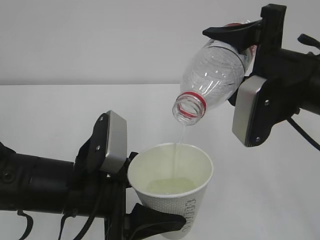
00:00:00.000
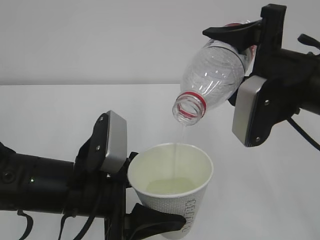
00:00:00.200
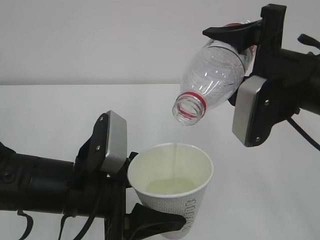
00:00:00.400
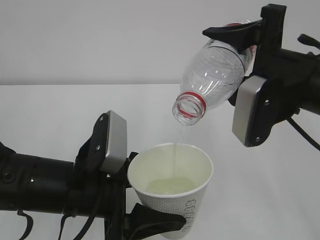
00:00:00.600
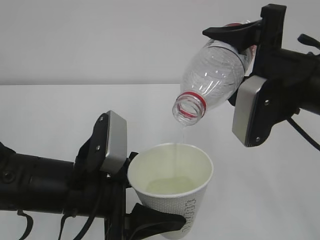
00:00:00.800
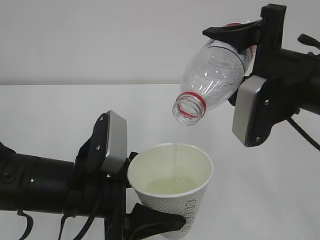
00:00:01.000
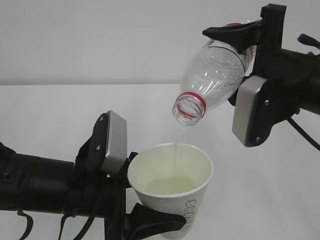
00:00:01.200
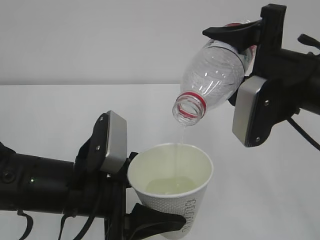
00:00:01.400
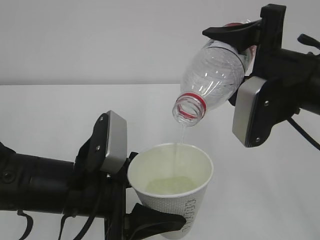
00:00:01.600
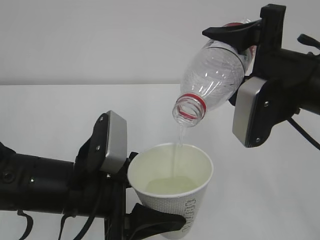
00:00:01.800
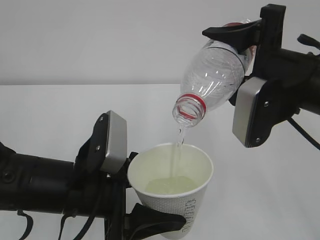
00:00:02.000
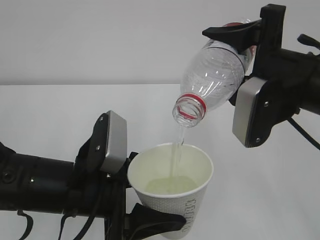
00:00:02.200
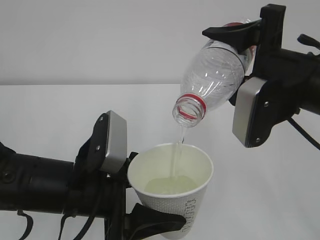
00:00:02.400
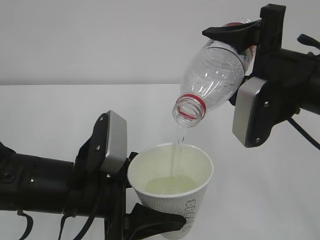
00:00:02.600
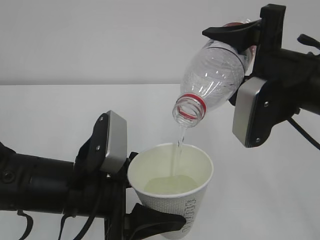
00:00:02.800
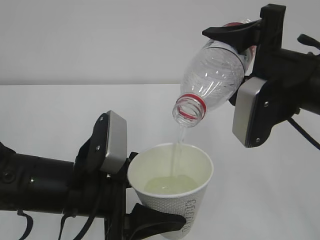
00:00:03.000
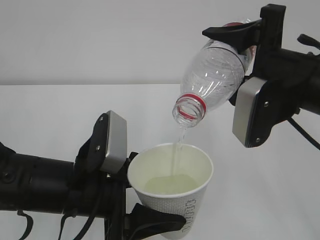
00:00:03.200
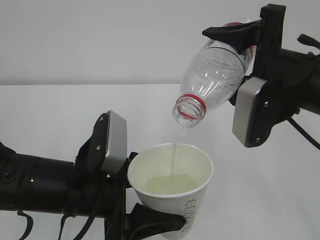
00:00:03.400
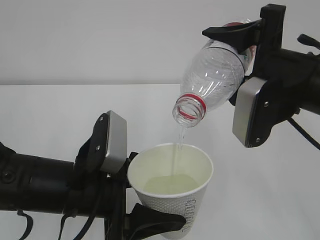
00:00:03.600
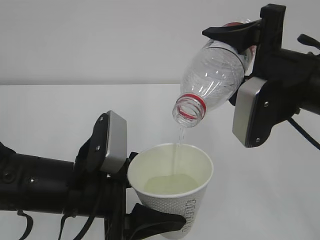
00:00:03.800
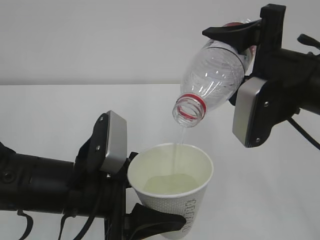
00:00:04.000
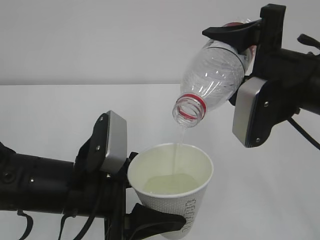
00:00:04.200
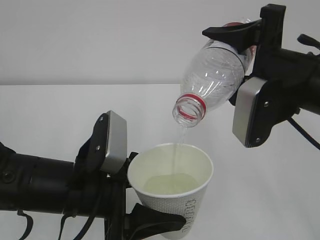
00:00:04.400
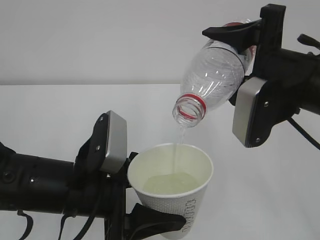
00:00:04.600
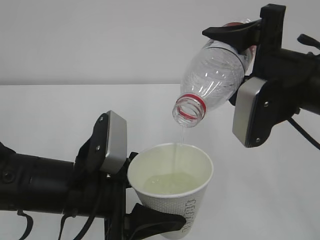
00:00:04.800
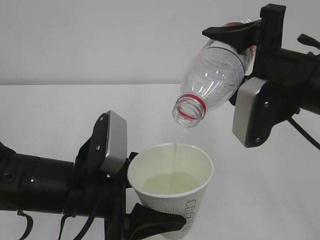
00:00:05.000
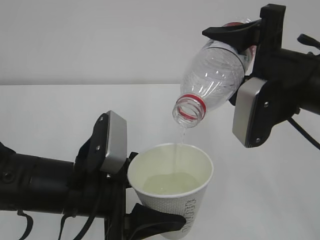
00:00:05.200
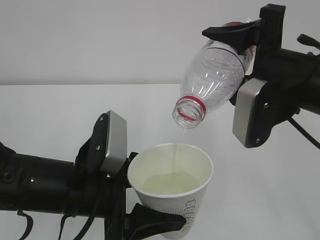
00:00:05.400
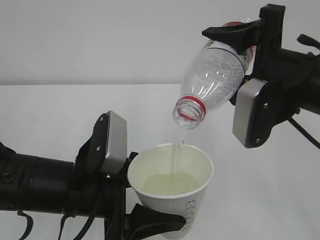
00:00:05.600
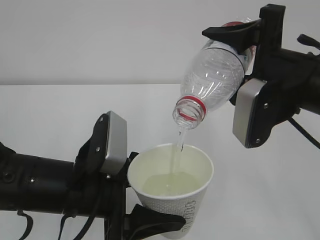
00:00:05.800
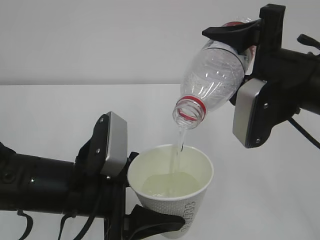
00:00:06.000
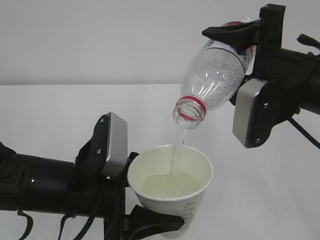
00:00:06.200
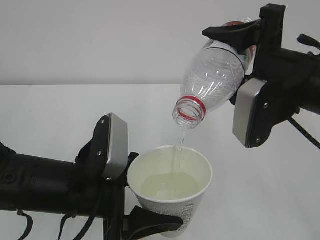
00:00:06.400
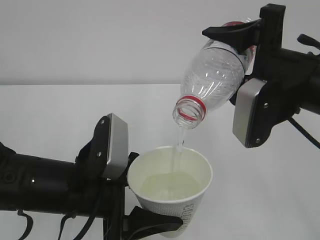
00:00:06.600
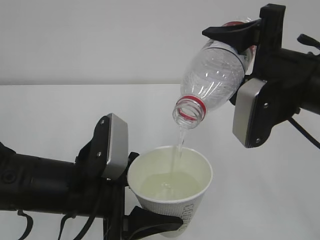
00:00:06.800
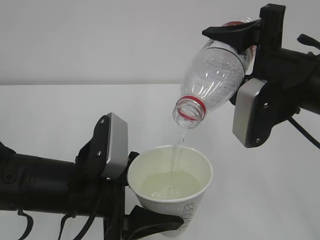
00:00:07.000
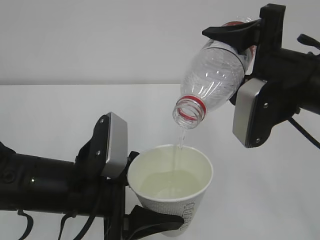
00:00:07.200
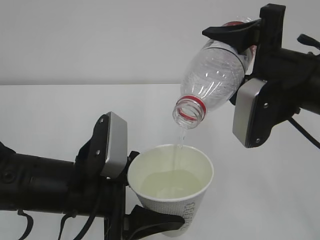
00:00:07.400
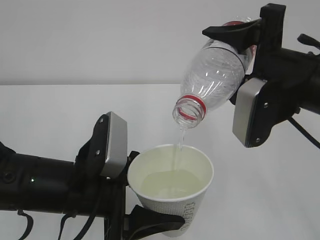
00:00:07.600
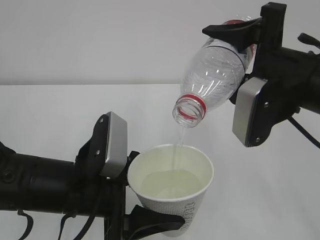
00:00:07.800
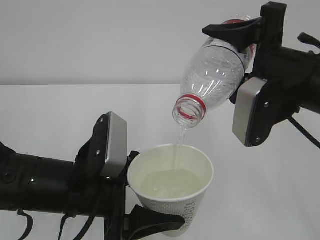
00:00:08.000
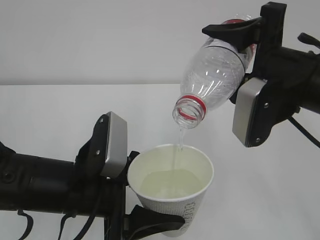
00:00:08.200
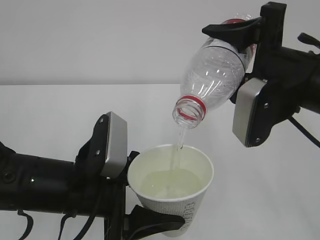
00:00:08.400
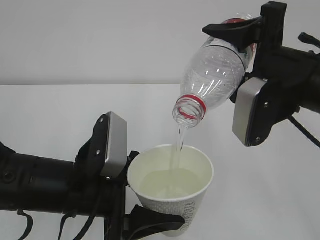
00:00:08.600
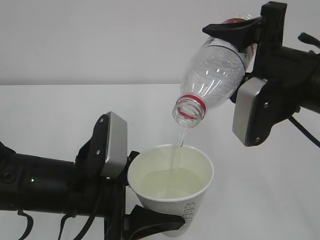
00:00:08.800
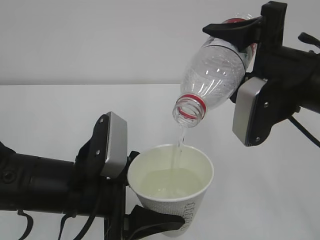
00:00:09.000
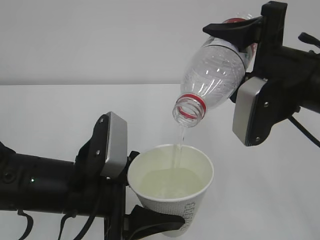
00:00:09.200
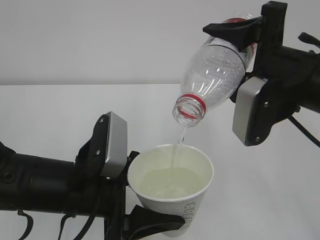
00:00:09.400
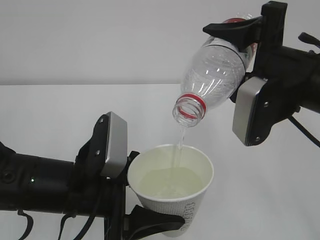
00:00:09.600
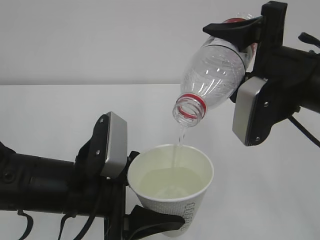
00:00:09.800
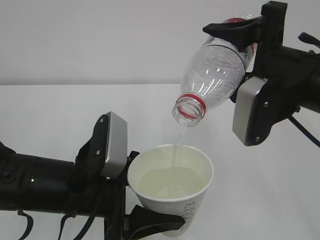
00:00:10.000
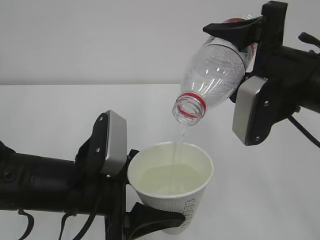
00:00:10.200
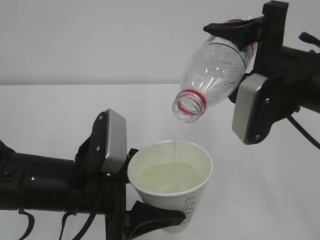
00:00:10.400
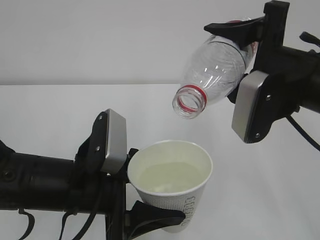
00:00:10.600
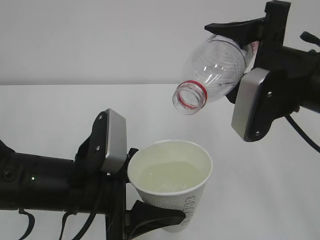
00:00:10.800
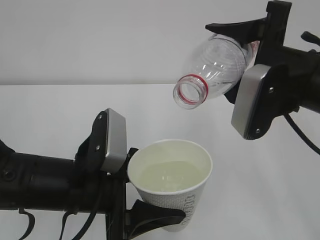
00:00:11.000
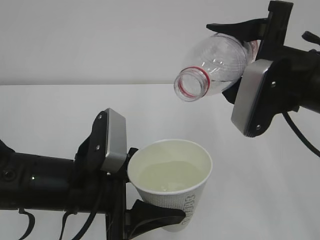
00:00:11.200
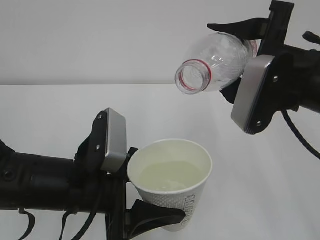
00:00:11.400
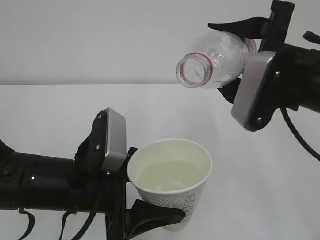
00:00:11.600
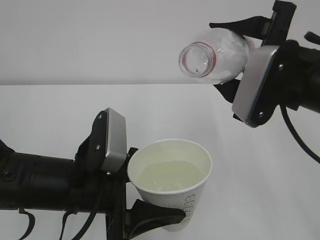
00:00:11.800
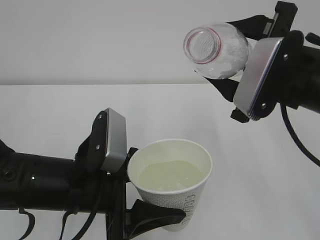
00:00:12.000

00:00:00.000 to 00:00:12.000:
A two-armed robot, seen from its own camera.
00:00:00.000 to 00:00:10.400: Neither gripper changes place.

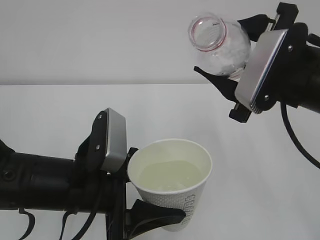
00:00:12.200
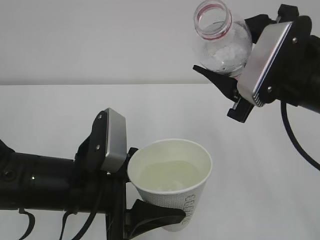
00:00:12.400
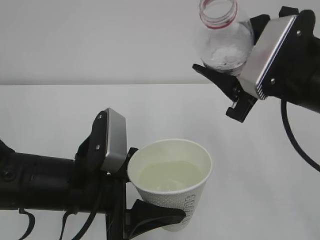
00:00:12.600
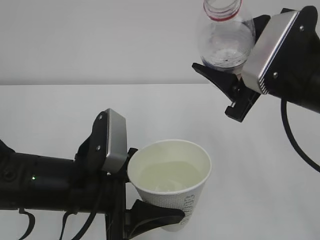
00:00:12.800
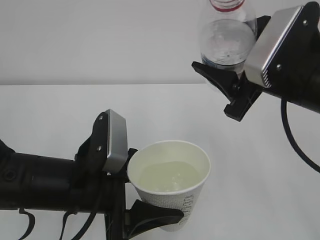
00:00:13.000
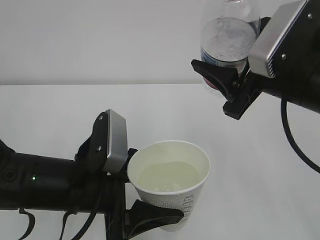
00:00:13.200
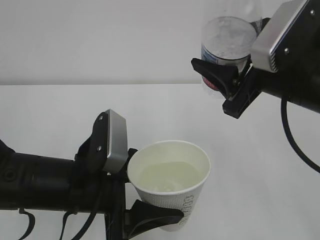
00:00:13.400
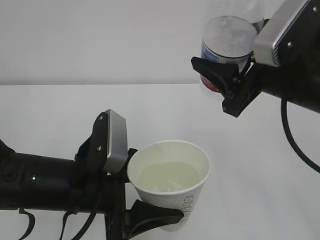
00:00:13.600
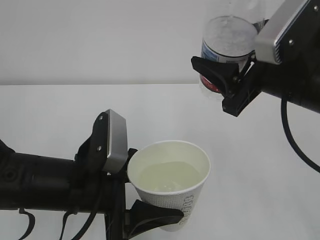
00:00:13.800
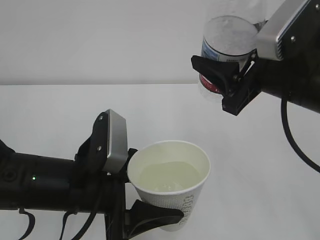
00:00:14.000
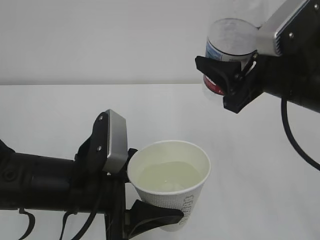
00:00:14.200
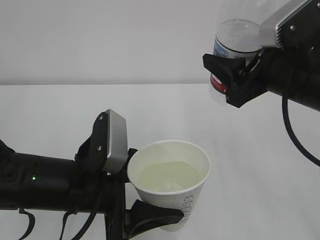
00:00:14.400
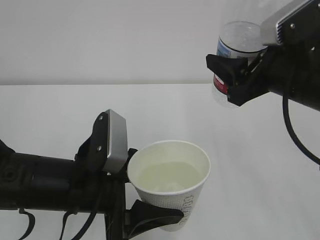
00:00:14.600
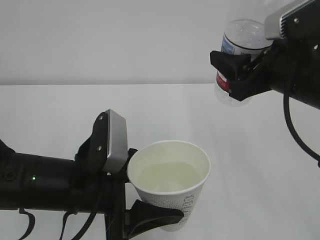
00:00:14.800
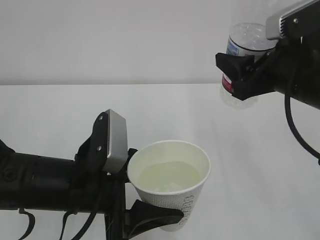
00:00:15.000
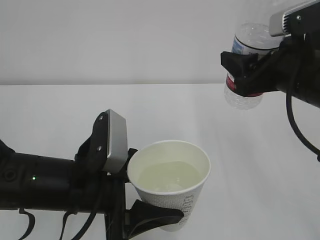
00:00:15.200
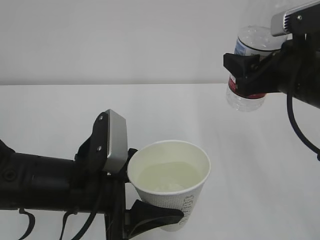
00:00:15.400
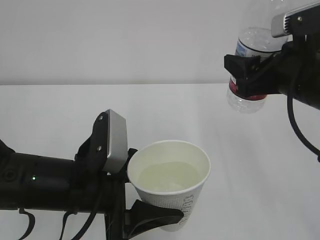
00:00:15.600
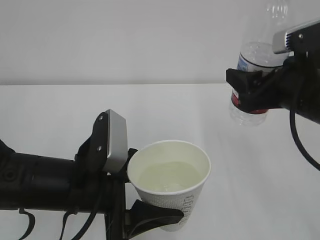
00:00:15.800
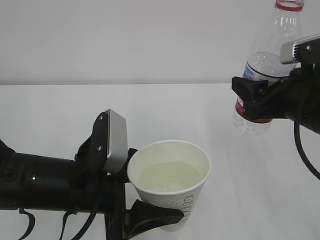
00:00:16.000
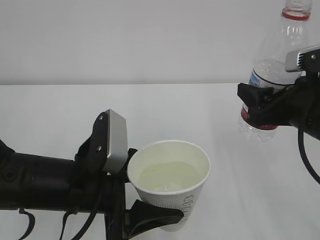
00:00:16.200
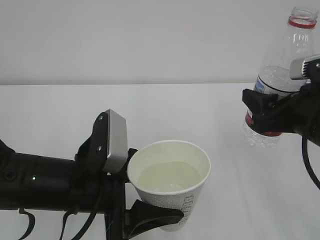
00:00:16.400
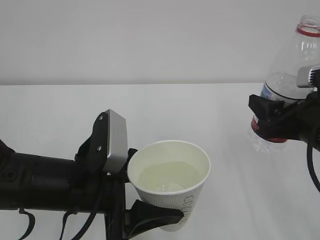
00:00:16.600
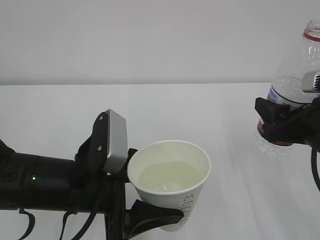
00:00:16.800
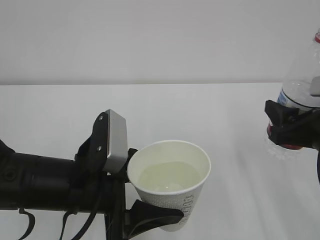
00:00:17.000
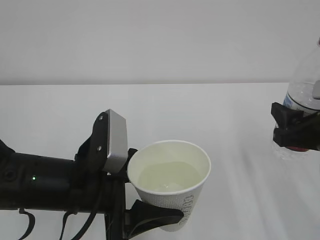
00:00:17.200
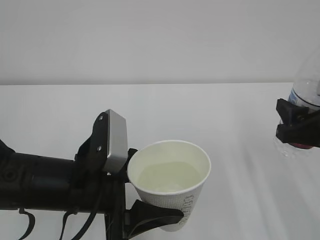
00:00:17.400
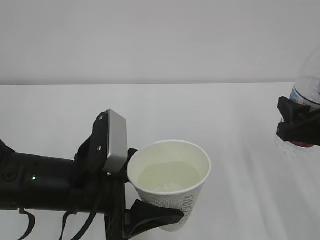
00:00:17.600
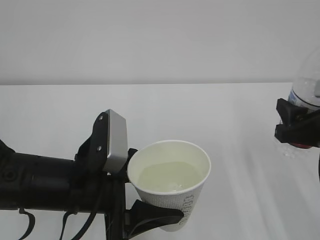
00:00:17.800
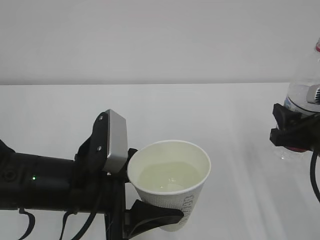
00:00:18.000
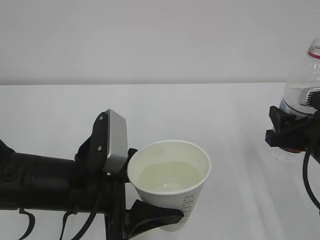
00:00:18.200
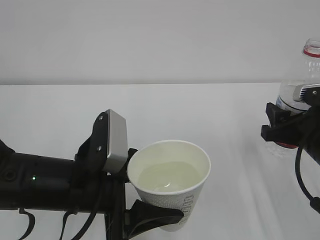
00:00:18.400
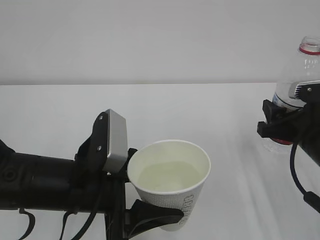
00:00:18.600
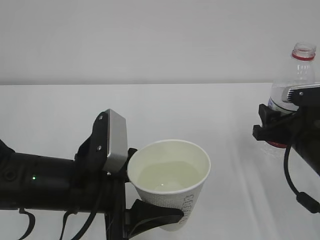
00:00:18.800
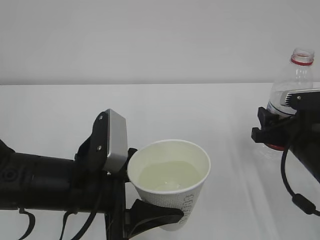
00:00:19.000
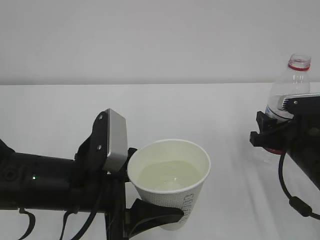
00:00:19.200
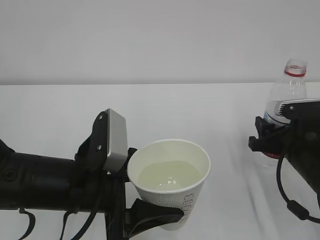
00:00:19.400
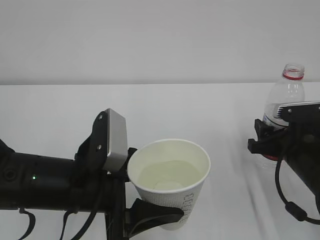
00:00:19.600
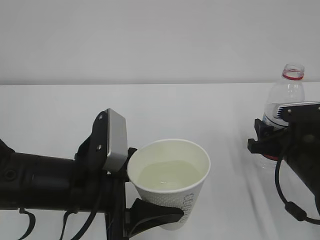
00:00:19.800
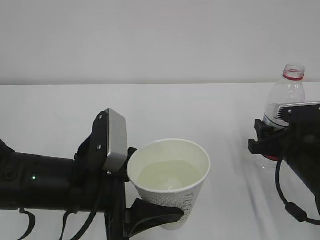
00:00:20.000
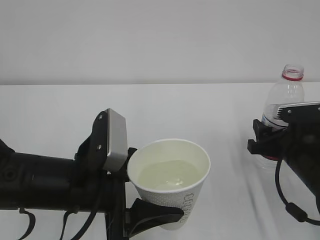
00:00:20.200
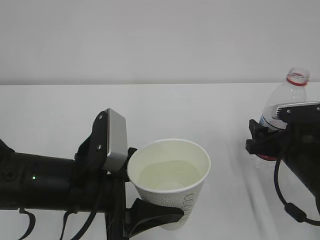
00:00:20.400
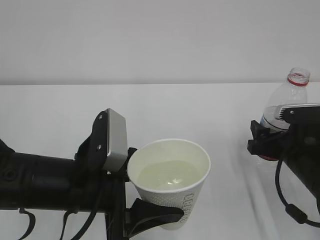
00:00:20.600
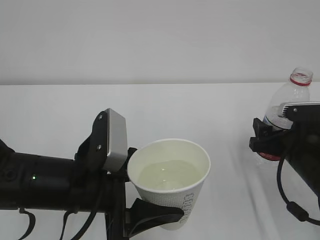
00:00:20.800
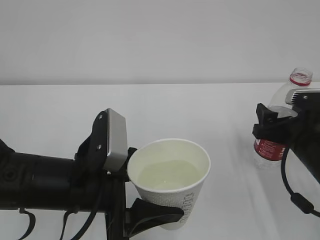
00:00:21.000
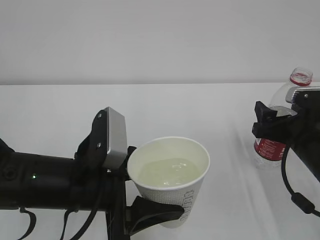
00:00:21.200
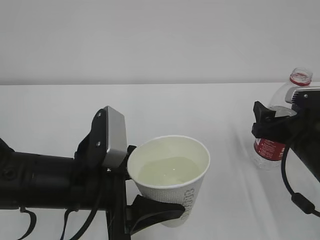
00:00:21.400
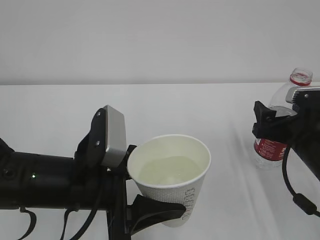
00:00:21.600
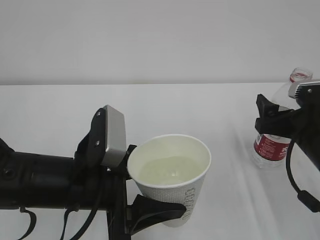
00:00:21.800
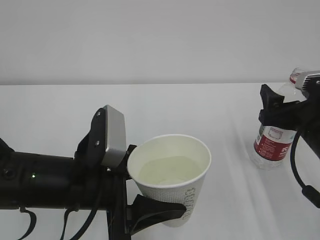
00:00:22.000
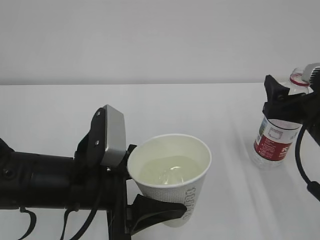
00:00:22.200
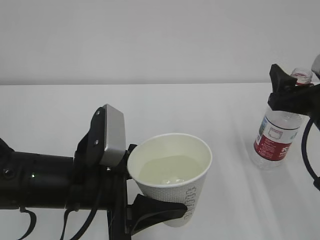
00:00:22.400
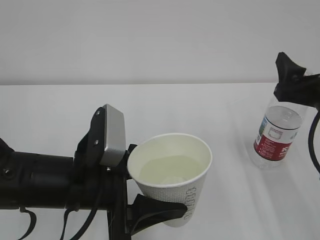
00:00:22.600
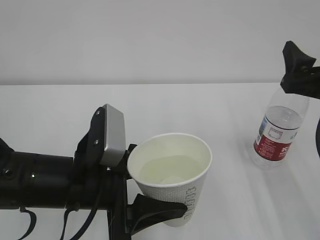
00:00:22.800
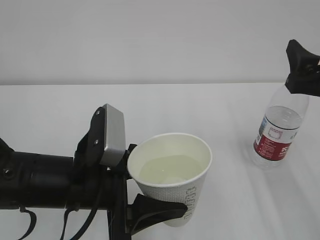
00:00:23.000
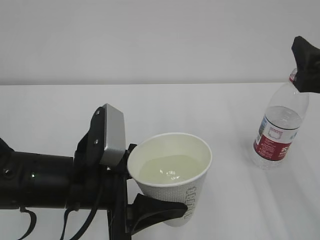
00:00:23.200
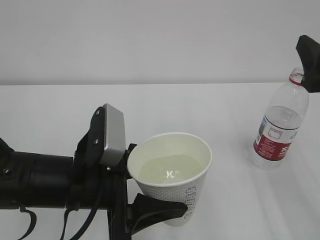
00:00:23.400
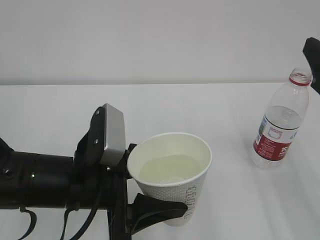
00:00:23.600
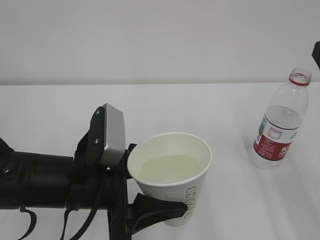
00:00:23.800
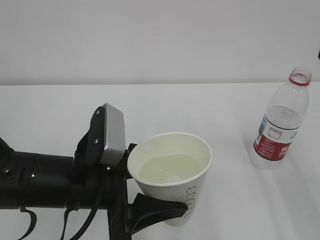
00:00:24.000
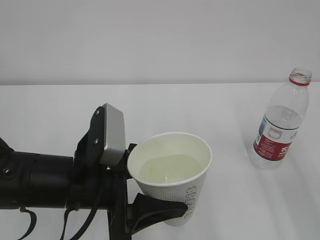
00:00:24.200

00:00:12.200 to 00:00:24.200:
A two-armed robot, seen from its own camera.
00:00:15.200 to 00:00:16.600: The right gripper travels downward by some 5 cm.
00:00:16.600 to 00:00:18.200: The grippers stay close to where they were, moving slightly.
00:00:18.200 to 00:00:19.800: The right gripper moves downward, roughly 5 cm.
00:00:19.800 to 00:00:21.200: The right gripper opens up.
00:00:21.200 to 00:00:22.600: The right gripper moves upward, about 10 cm.
00:00:22.600 to 00:00:24.200: The right gripper moves backward and upward, some 10 cm.
